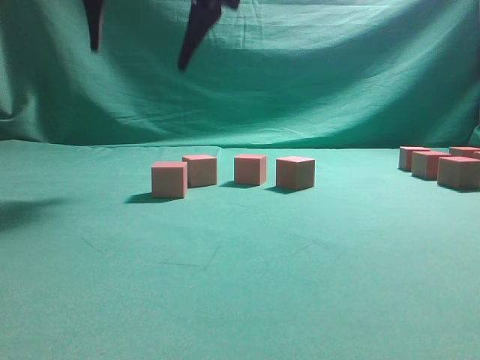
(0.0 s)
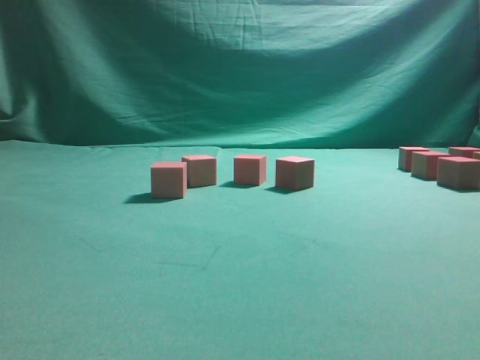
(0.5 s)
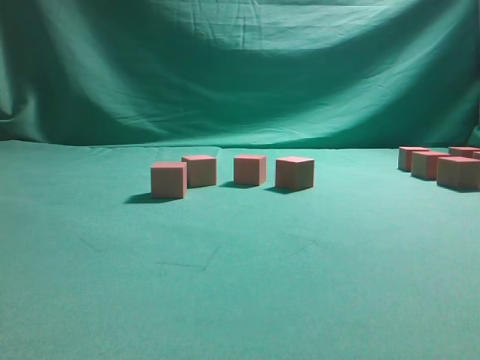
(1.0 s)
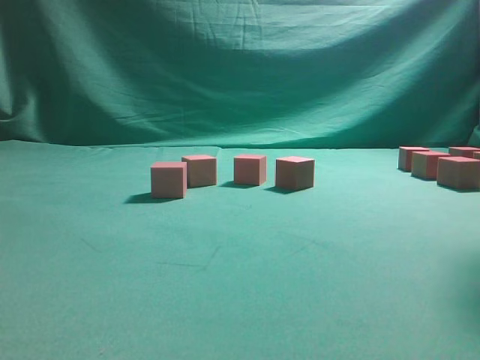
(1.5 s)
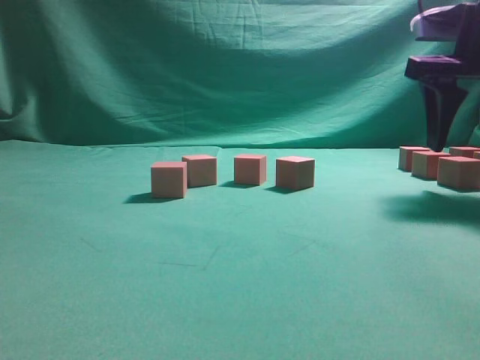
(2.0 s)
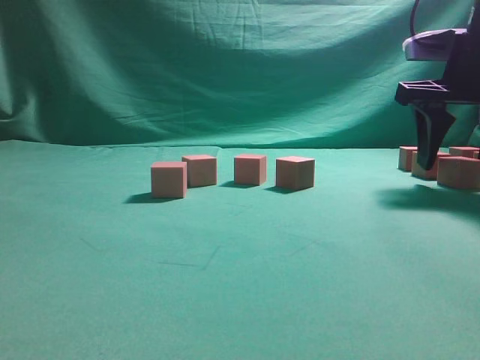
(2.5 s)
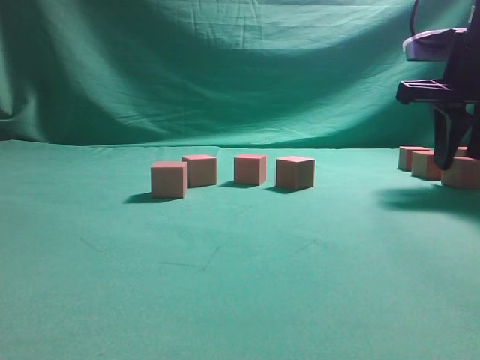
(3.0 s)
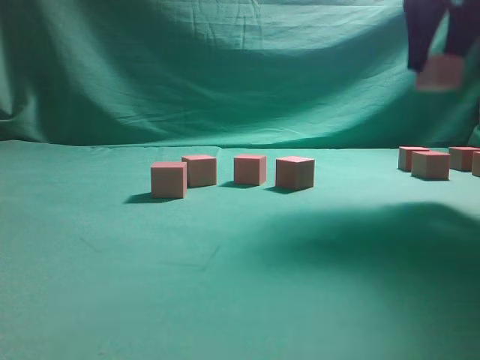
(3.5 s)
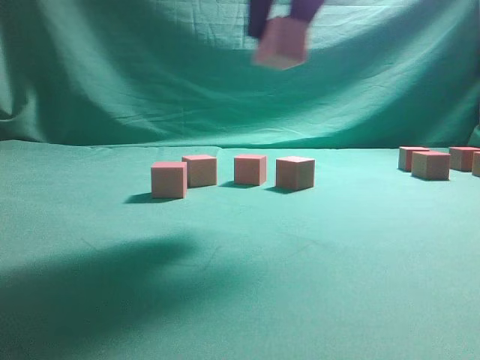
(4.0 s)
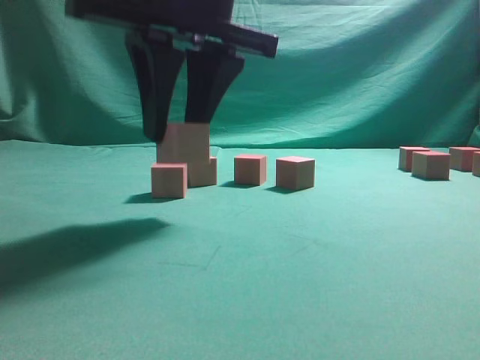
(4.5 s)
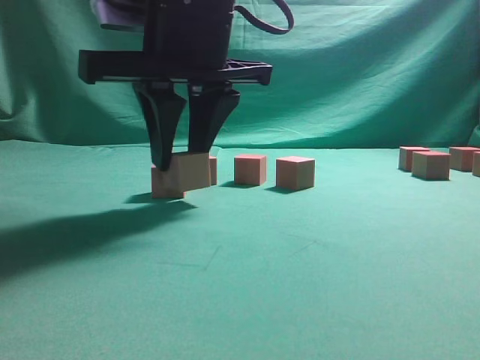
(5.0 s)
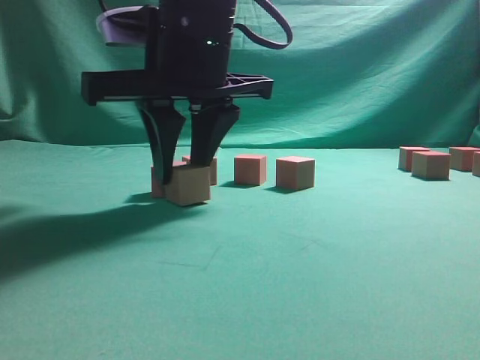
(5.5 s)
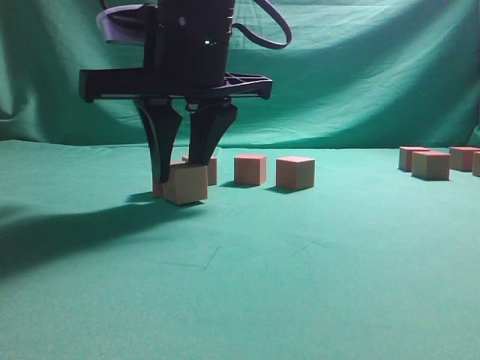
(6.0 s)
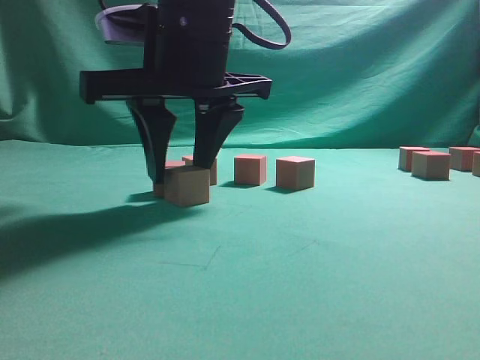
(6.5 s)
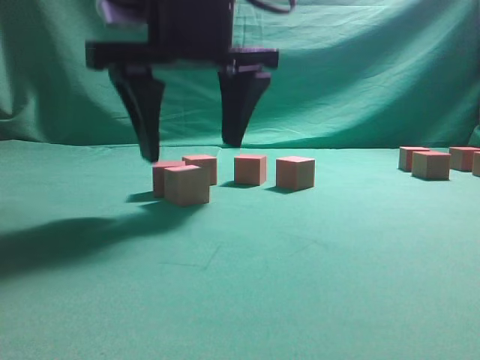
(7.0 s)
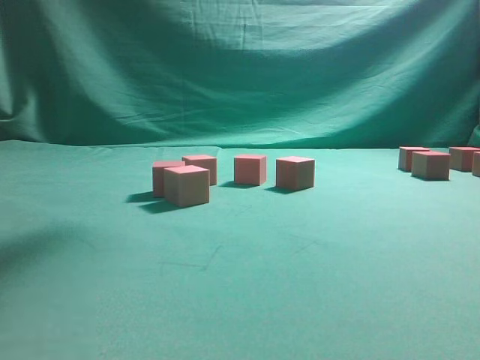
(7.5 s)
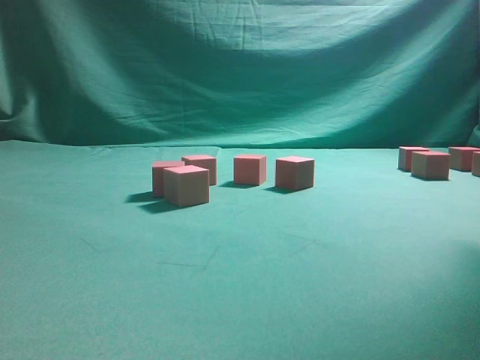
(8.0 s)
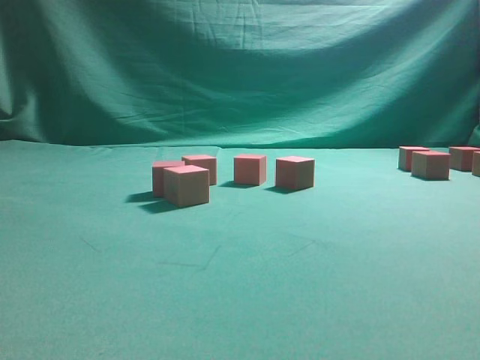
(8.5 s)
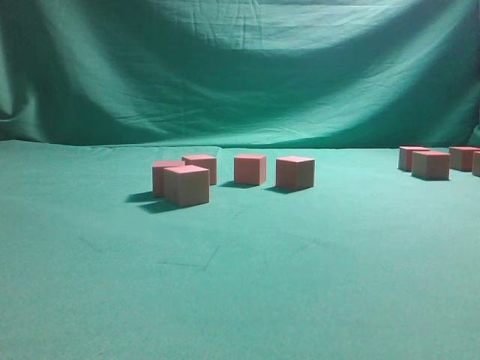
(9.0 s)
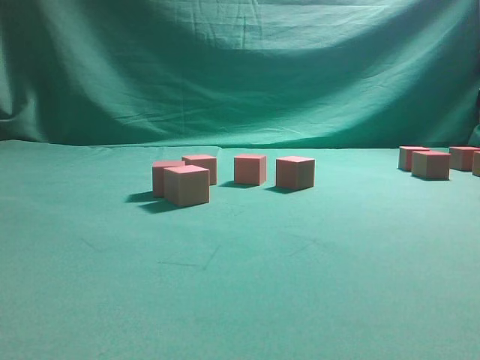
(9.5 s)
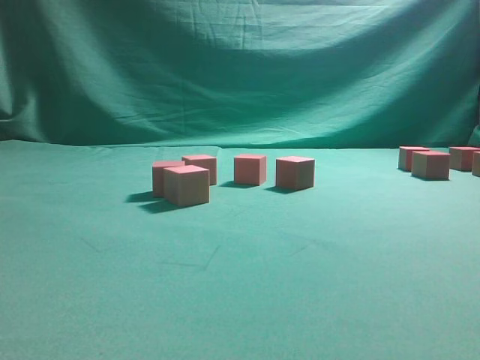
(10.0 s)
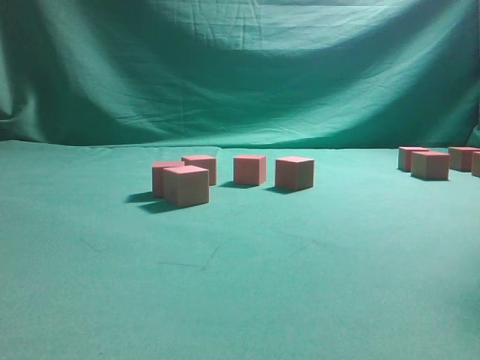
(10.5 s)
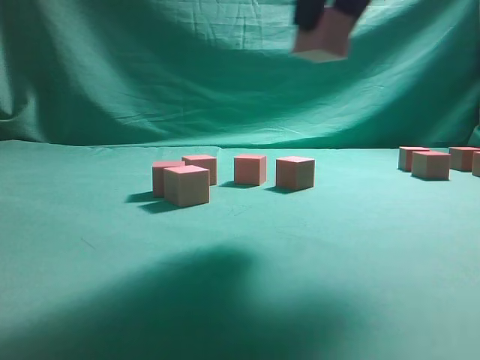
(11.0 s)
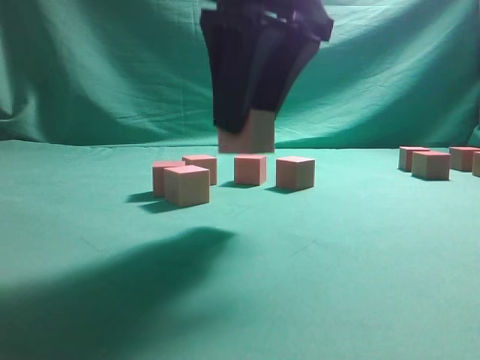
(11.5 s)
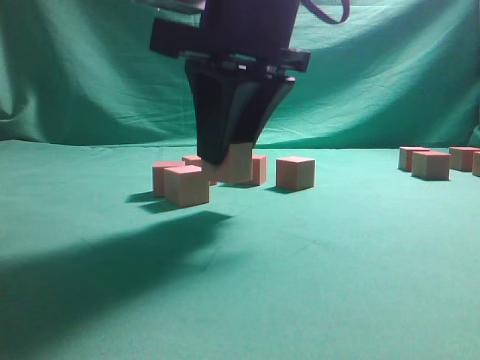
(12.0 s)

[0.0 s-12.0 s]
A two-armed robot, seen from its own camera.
Task of the whole recording: pick up the multiple cubes in two columns one by one and place them in another position on the table.
Step, 0.0 to 3.0 s: Pick up the block on the table.
Step, 3.5 to 7.0 s: Place the block at the correct position to assemble the letter S.
Step, 7.5 to 10.0 s: Pick up the block on the table.
0.0 to 2.0 s: The right gripper shifts roughly 30 cm to the right.
2.0 to 4.0 s: The right gripper is displaced to the left and upward by roughly 20 cm, and closes.
4.0 to 6.0 s: The right gripper shifts roughly 15 cm downward and to the left.
6.0 to 8.0 s: The right gripper travels to the right and upward by roughly 30 cm, and opens its fingers.
8.0 to 10.0 s: The right gripper is displaced downward and to the right by about 20 cm, and closes.
10.0 to 12.0 s: The right gripper shifts roughly 30 cm to the left.

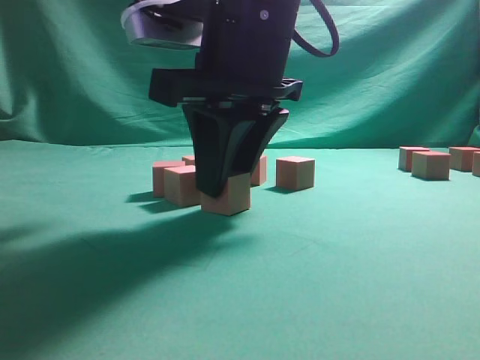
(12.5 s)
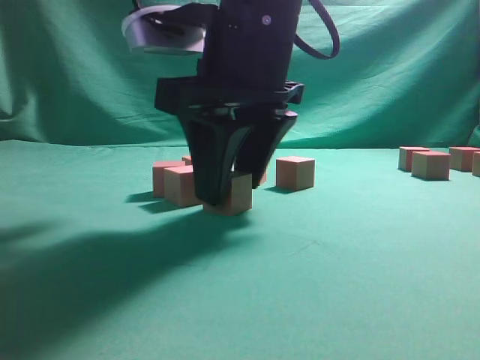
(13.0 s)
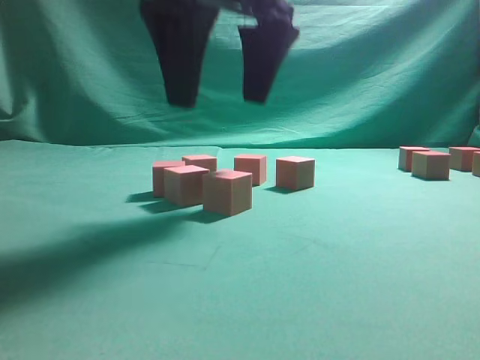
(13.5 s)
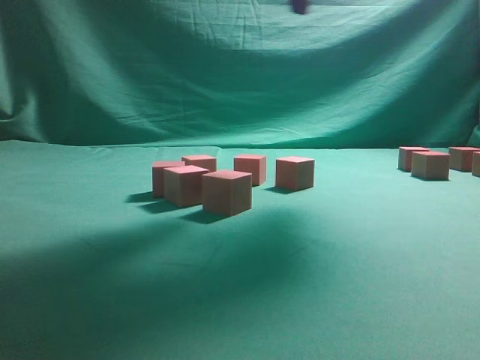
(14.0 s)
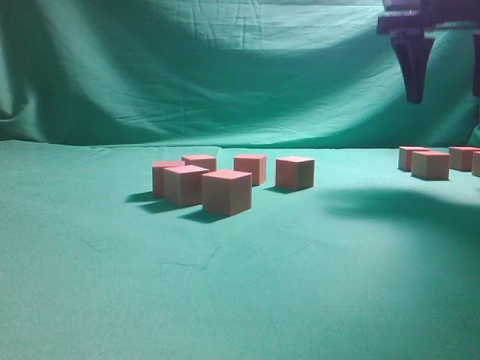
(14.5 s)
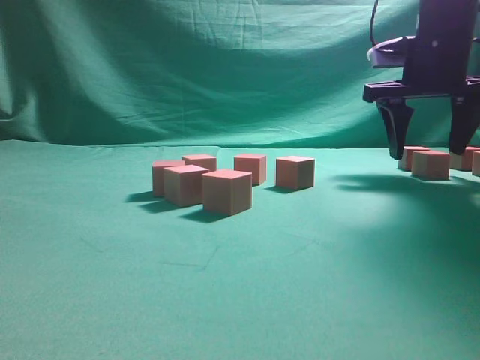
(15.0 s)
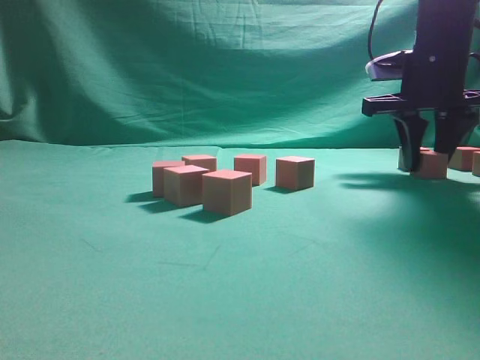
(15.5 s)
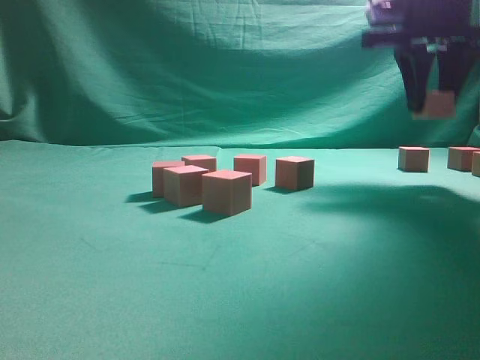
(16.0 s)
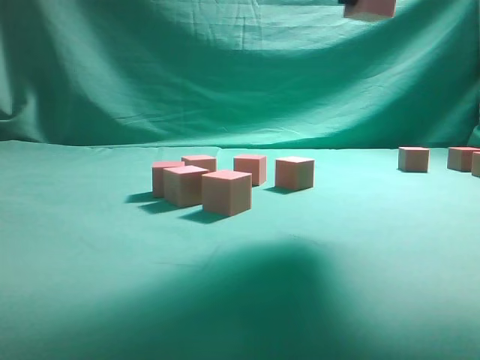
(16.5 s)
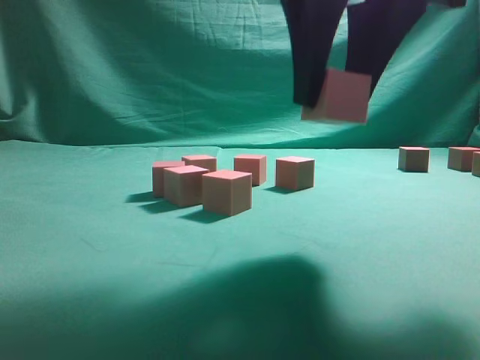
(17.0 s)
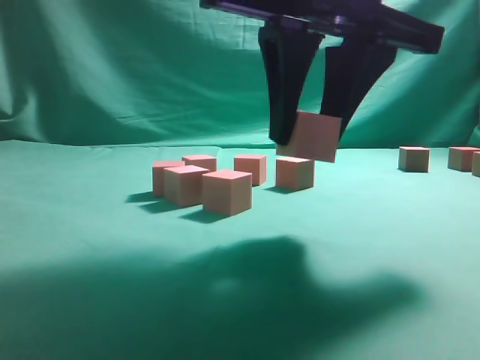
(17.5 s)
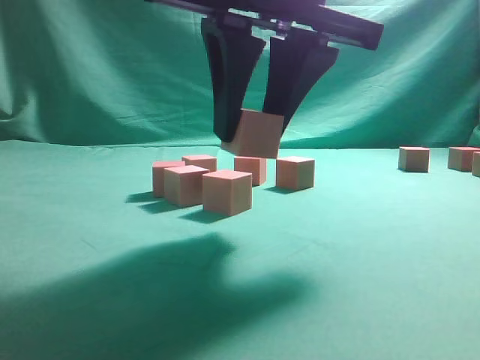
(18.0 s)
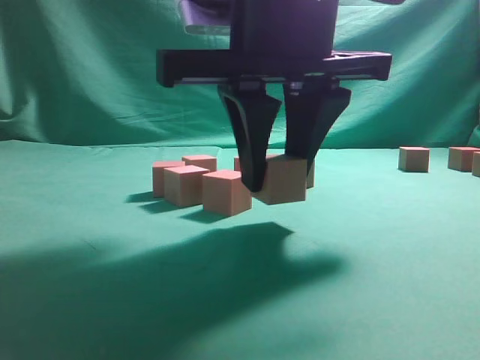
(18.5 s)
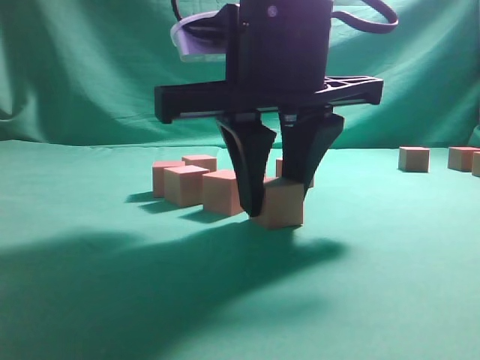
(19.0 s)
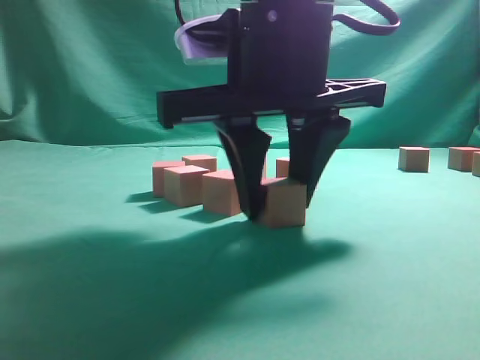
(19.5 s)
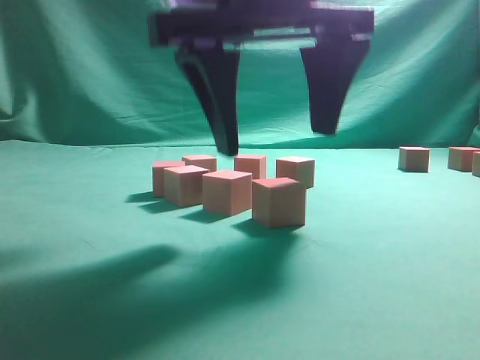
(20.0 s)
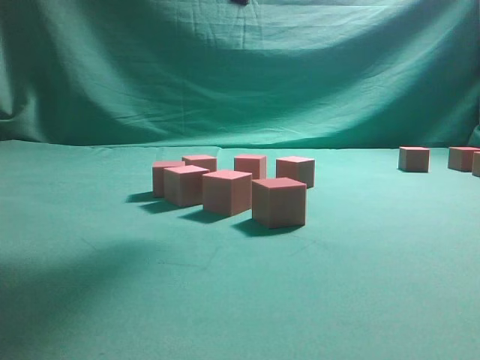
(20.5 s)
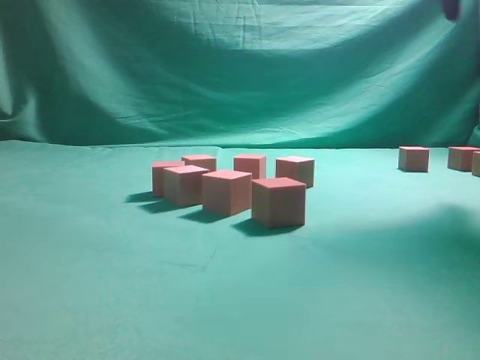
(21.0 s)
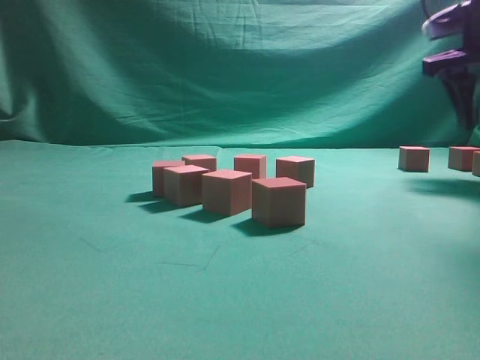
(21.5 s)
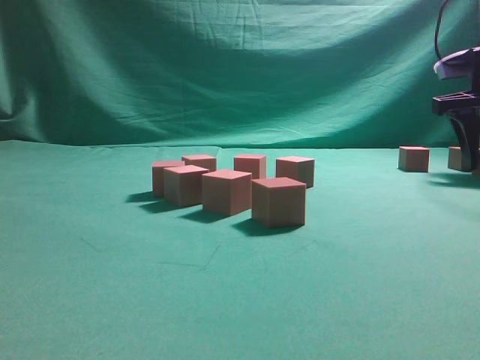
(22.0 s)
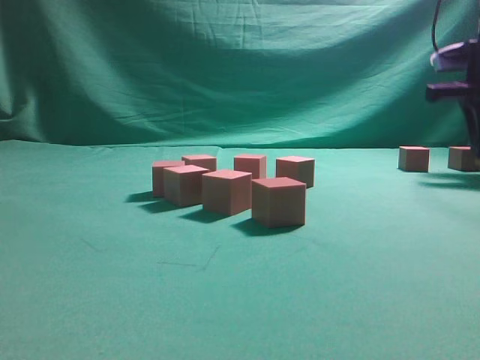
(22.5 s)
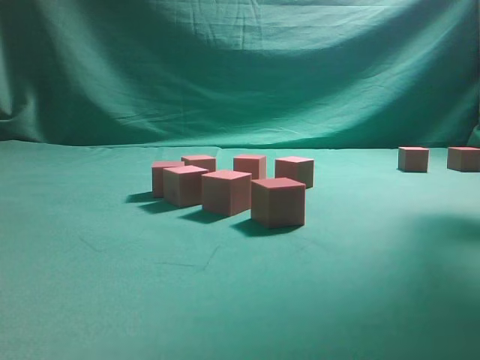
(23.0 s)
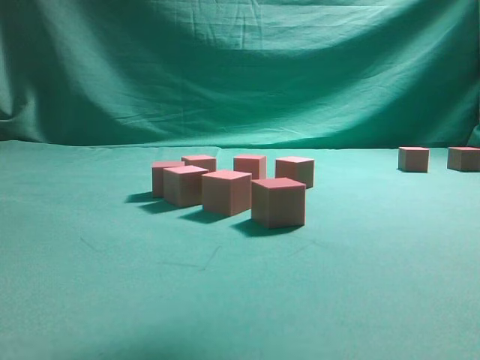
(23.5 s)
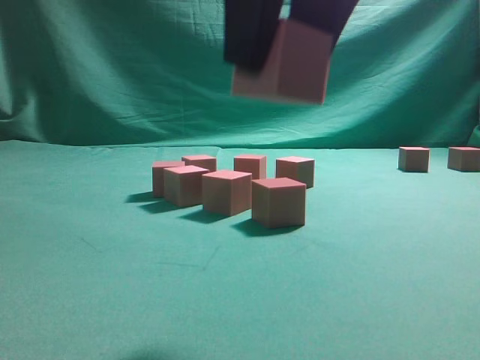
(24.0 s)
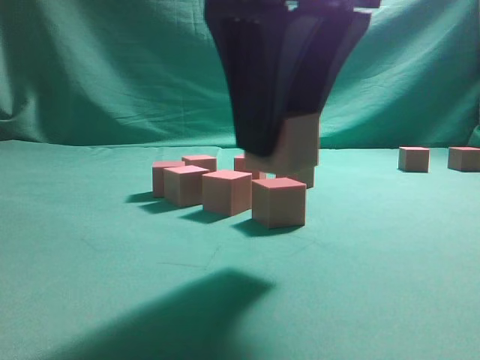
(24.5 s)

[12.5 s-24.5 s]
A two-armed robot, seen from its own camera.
Task of the whole recording: pick up the multiple cubes in two columns one by one and place them in another position on the table.
Step, 14.0 to 15.5 s: Pick up the block on the table.
Step, 16.5 to 20.0 s: Place the block at the correct position to assemble the letter S.
Step, 20.5 to 22.5 s: Pick up the block on the table.
12.5 to 14.5 s: The right gripper shifts approximately 25 cm to the right and forward, and opens.
14.5 to 16.5 s: The right gripper goes roughly 15 cm to the left, backward and upward, and closes its fingers.
16.5 to 18.5 s: The right gripper travels downward, to the left and backward by about 20 cm.
18.5 to 20.5 s: The right gripper heads upward, covering approximately 15 cm, and opens its fingers.
20.5 to 22.5 s: The right gripper shifts about 35 cm to the right, forward and downward, and closes up.
22.5 to 24.5 s: The right gripper shifts about 35 cm to the left and backward.

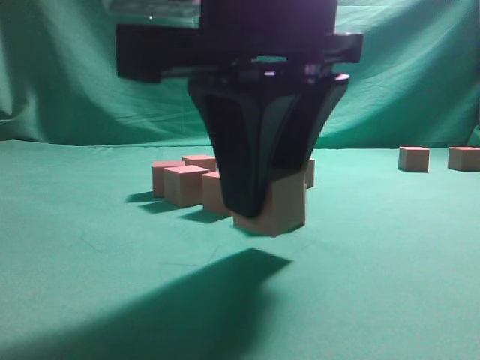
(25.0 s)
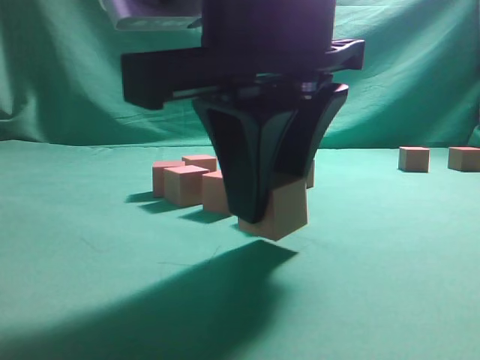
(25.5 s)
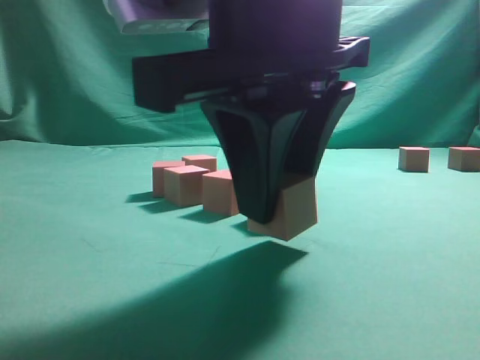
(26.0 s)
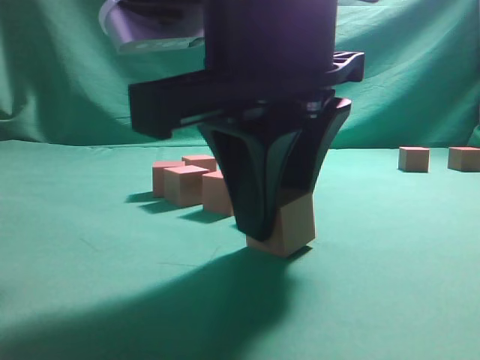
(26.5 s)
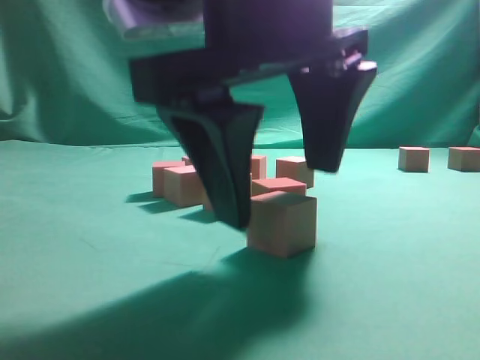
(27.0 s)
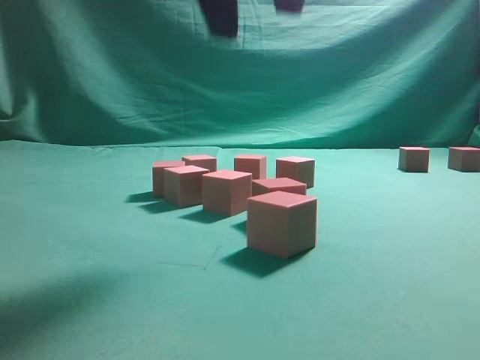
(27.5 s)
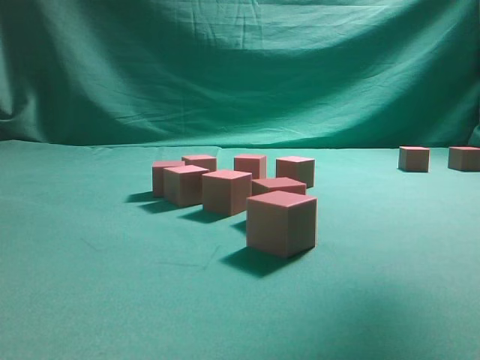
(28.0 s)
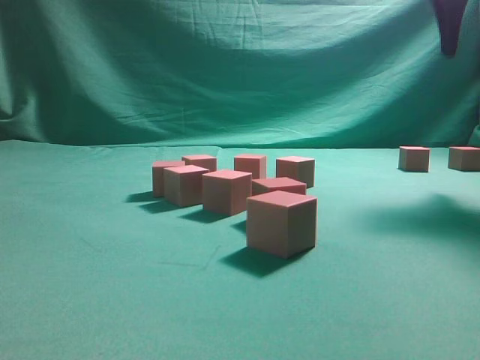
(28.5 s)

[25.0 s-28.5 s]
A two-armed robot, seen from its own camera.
Task of the whole recording: pick up the multiple cubes in two columns one by one and place them in another position on the table.
Step, 25.0 to 27.0 s: Place the block at the correct position to assemble the letter S.
25.0 to 27.0 s: The right gripper opens up.
27.0 to 28.5 s: The right gripper moves to the right, forward and upward, approximately 30 cm.
